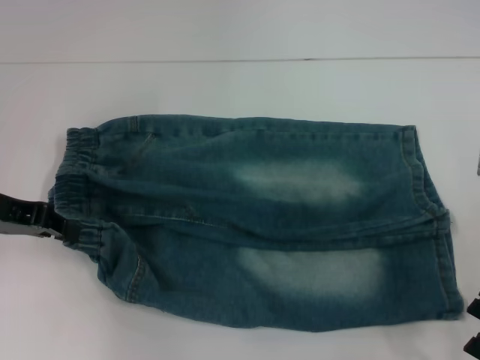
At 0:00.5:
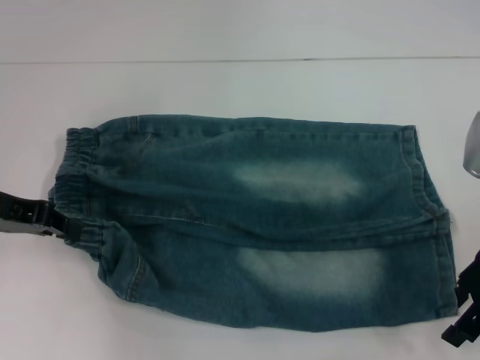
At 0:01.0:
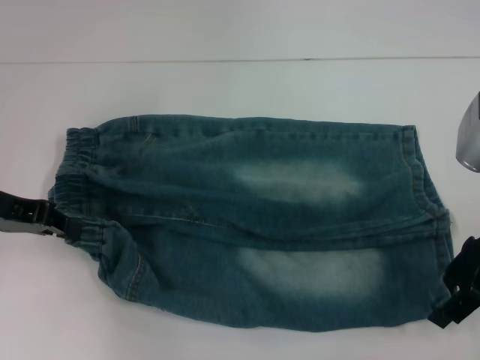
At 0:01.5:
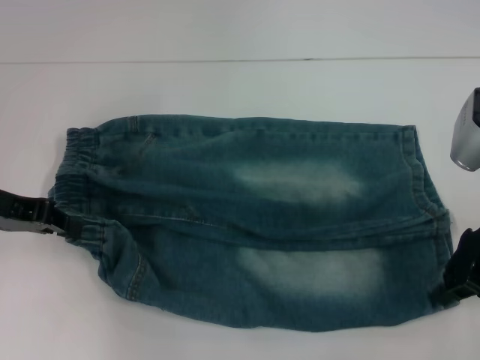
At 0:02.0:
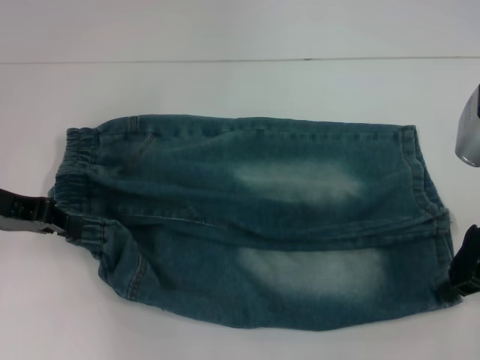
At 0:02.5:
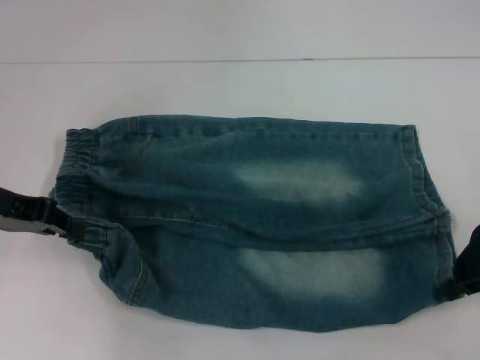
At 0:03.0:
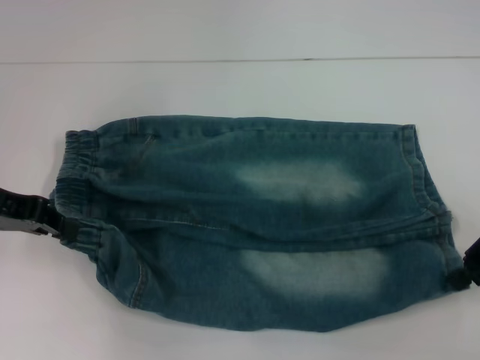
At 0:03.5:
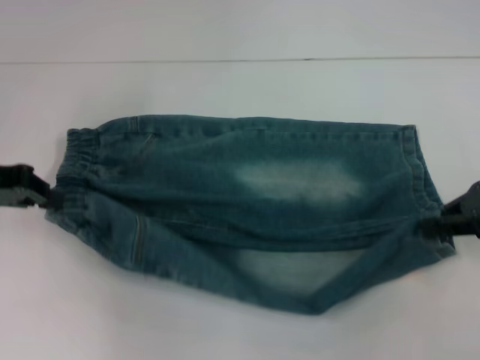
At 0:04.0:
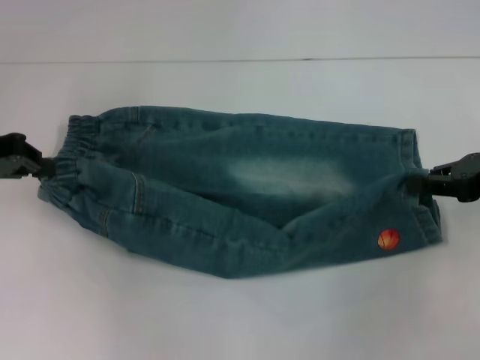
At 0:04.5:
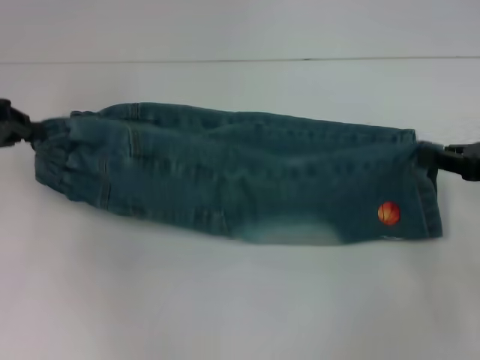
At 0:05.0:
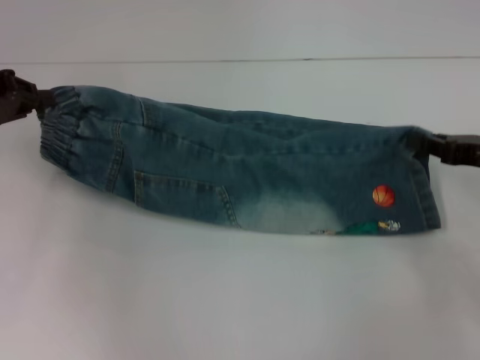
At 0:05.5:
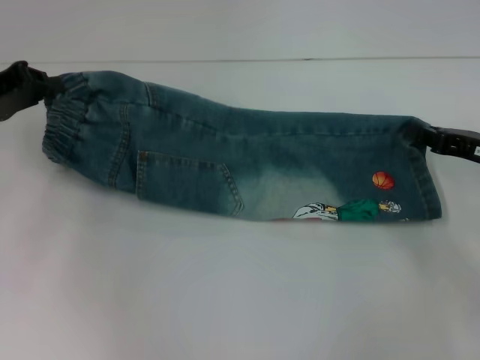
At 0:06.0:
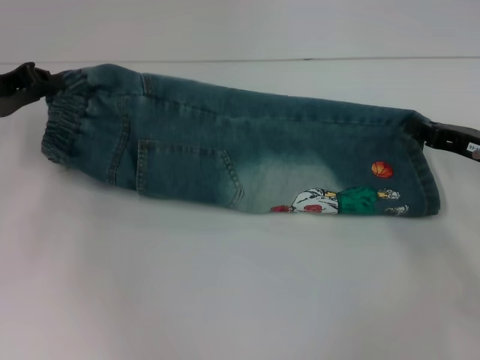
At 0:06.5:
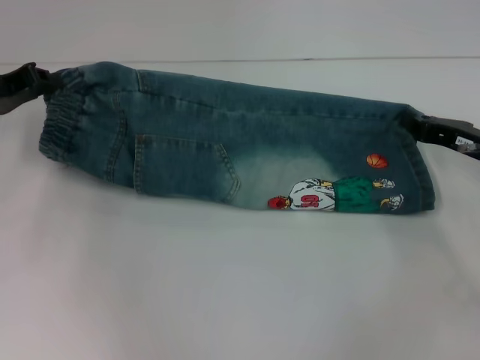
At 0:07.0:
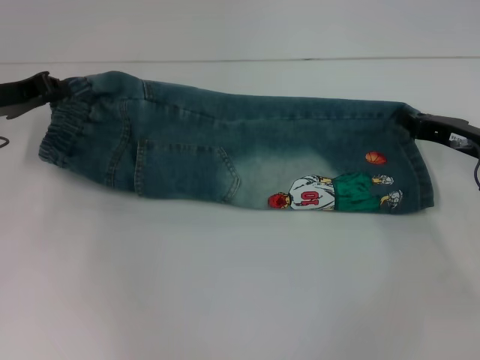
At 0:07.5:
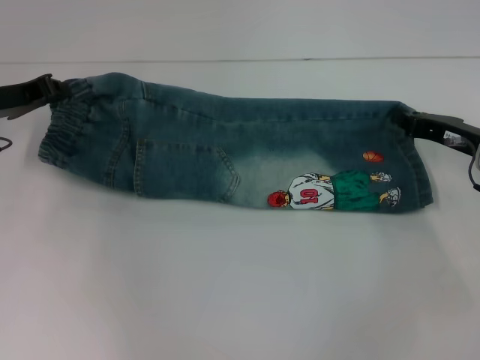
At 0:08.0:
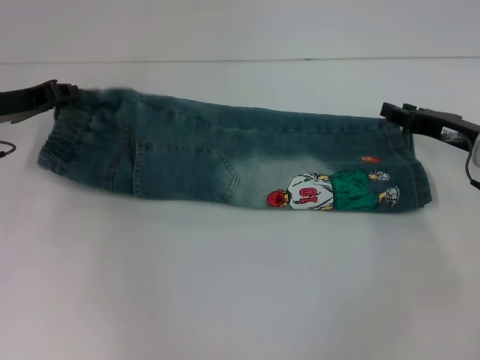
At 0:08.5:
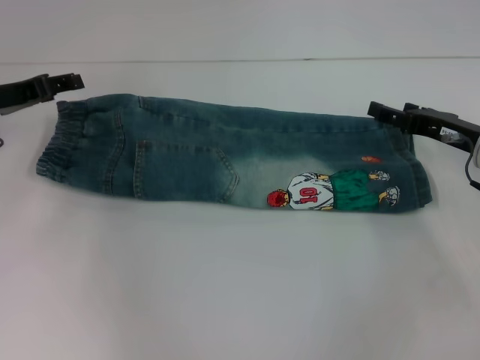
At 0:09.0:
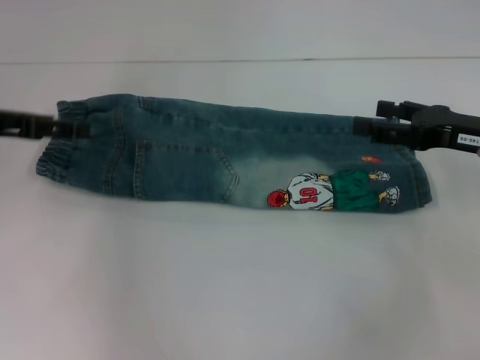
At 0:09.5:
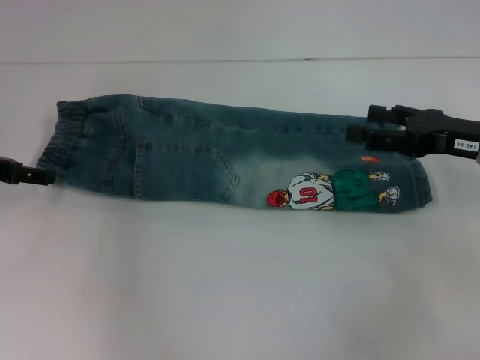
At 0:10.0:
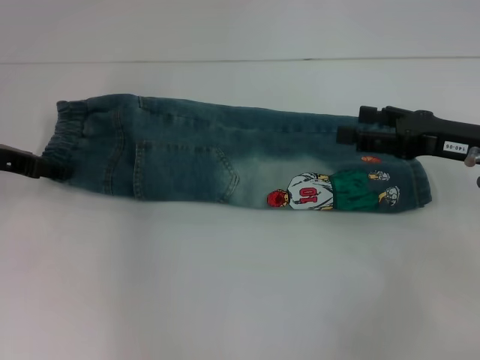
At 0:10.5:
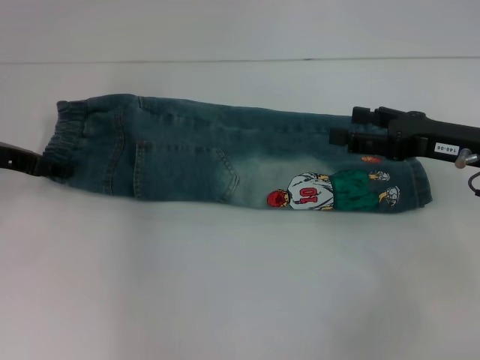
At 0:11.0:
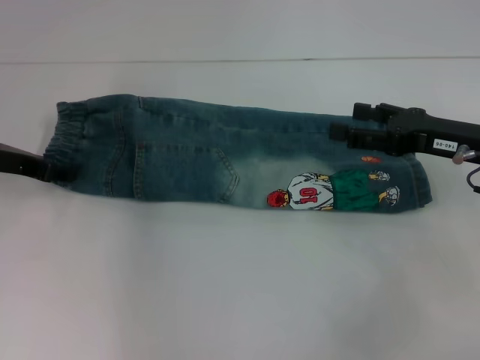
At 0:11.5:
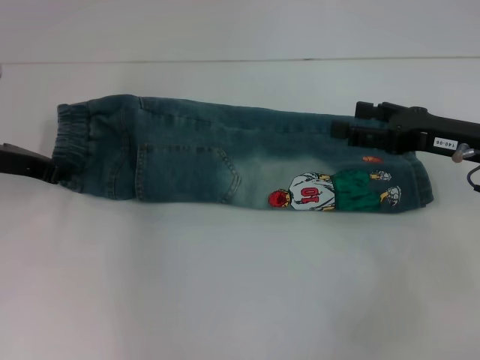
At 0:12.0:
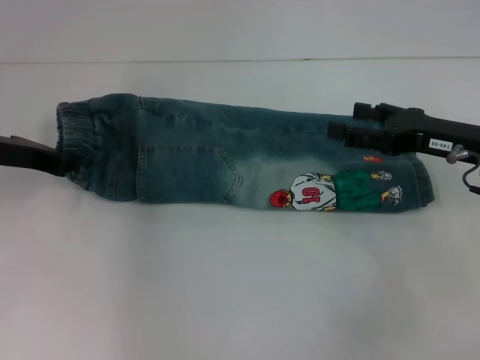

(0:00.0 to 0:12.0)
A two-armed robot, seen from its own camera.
Step, 0:01.5 - 0:08.0: Fold upward with your right hand.
Step, 0:08.5 - 0:11.0: Hold the waistband with your left hand.
0:00.0 - 0:02.0: The right gripper closes.
0:02.0 - 0:04.0: The right gripper moves to the right, approximately 5 cm.
0:04.0 - 0:06.0: The right gripper moves downward, approximately 5 cm.
0:06.0 - 0:08.0: The grippers make only small movements.
0:08.0 - 0:10.0: The left gripper opens, while the right gripper is displaced upward by about 5 cm, and opens its fingers.
0:10.0 - 0:12.0: The left gripper closes.

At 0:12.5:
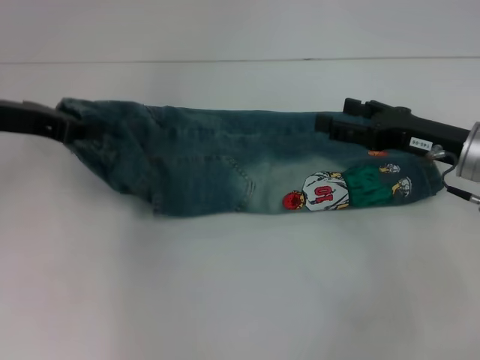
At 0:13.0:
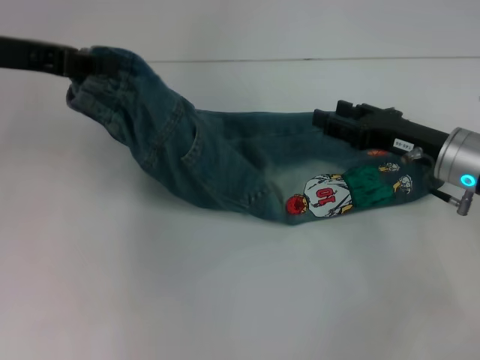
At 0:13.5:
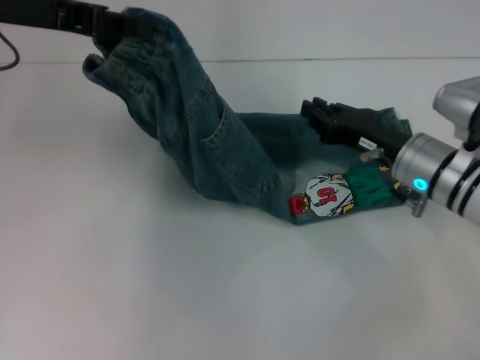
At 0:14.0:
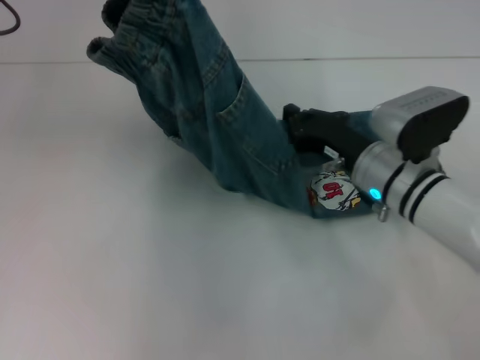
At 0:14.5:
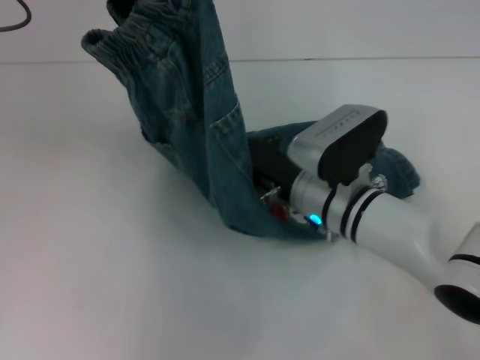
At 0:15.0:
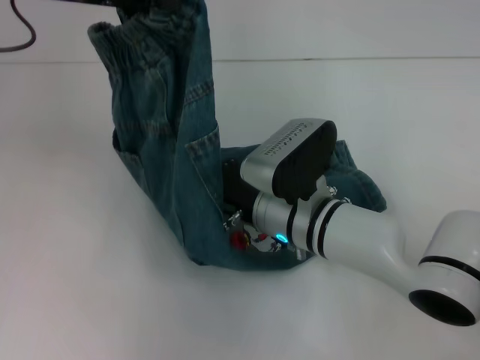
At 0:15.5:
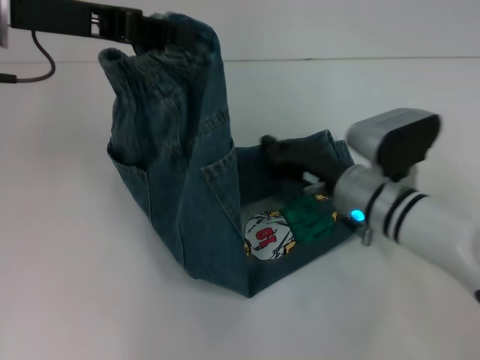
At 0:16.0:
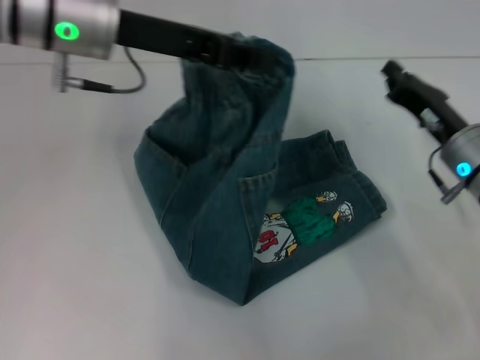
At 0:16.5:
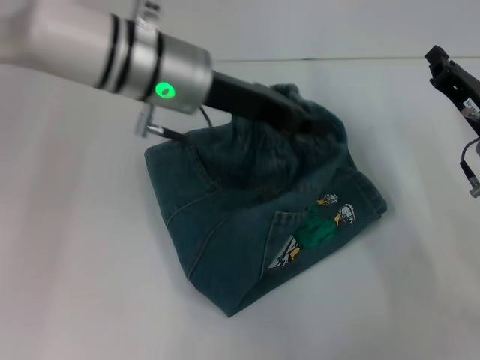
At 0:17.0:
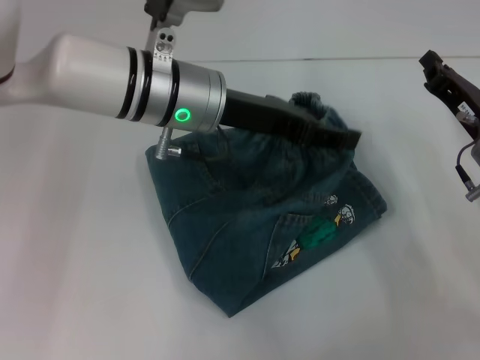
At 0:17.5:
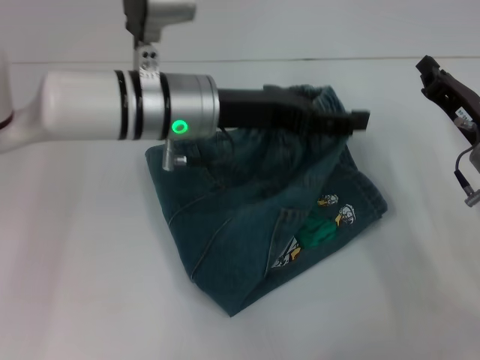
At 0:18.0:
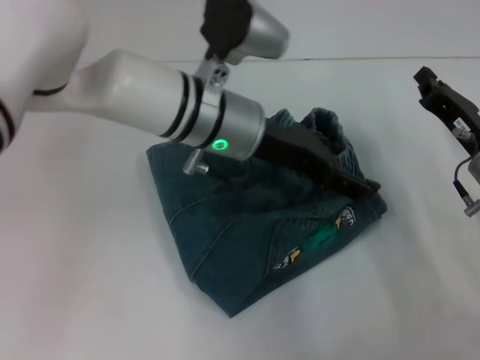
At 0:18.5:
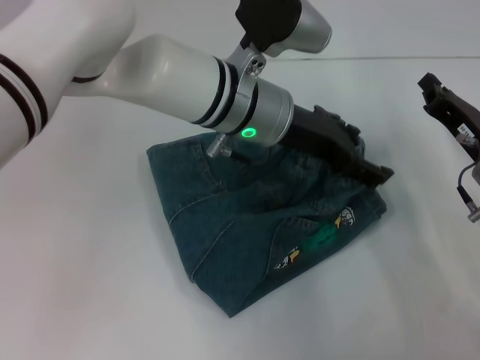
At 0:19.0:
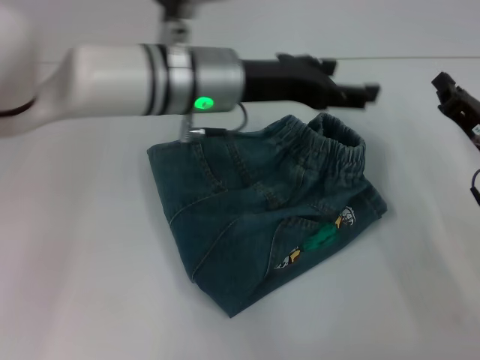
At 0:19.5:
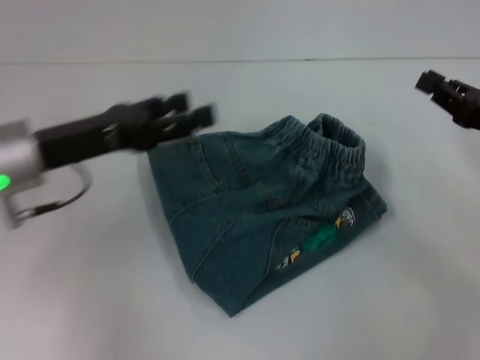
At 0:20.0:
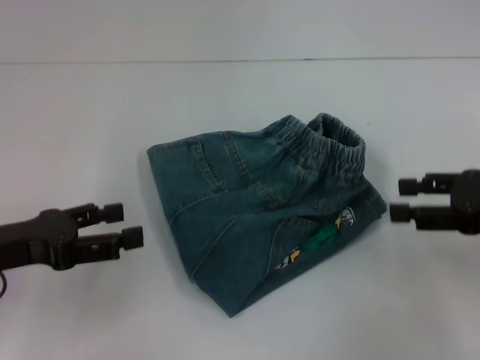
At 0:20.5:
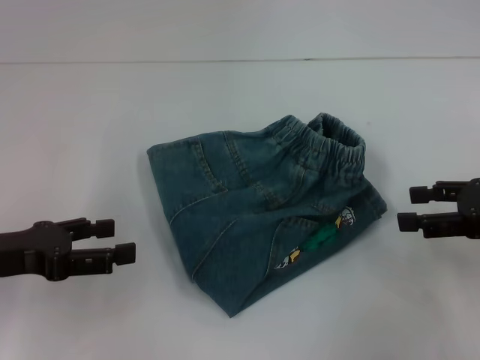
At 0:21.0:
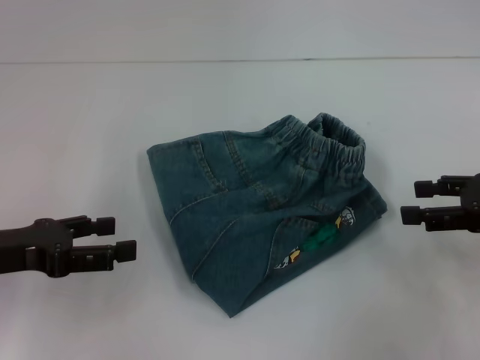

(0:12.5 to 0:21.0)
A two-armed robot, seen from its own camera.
Step, 0:12.5 - 0:15.0: Press the middle of the pants with your right hand.
Step, 0:15.5 - 0:18.5: Fold to the right with your left hand.
0:12.5 - 0:14.5: The left gripper is displaced upward by some 10 cm. The right gripper shifts about 15 cm to the left, and closes up.
0:14.5 - 0:16.5: The right gripper moves to the right, approximately 20 cm. The left gripper is displaced to the right and downward by roughly 20 cm.
0:16.5 - 0:19.0: The left gripper opens up.
0:19.0 - 0:21.0: The left gripper is displaced to the left and backward by roughly 25 cm, while the right gripper travels upward and to the right by some 10 cm, and opens its fingers.

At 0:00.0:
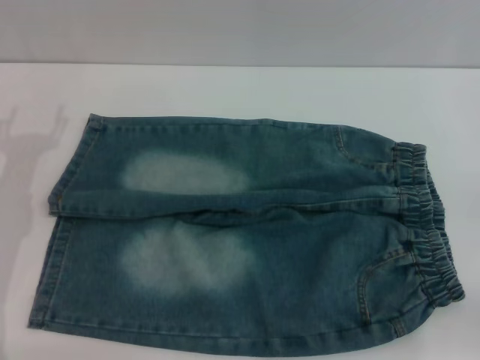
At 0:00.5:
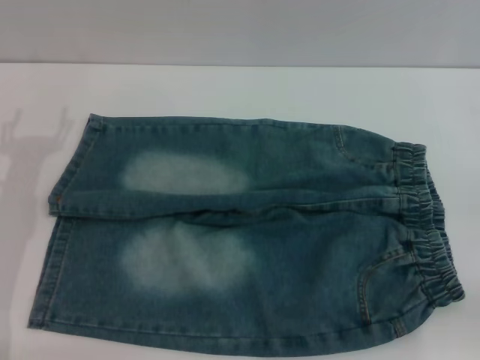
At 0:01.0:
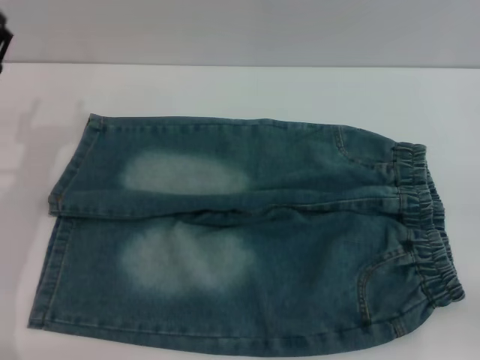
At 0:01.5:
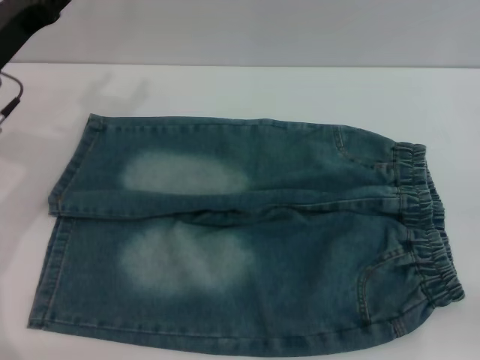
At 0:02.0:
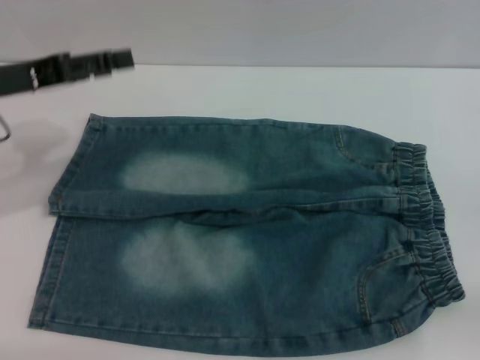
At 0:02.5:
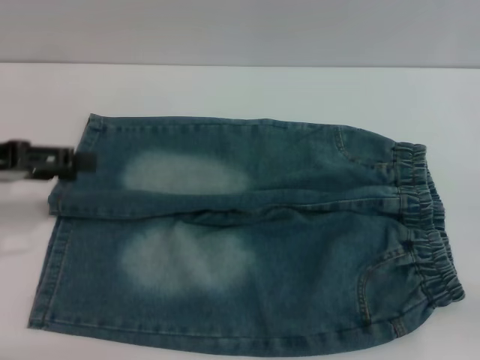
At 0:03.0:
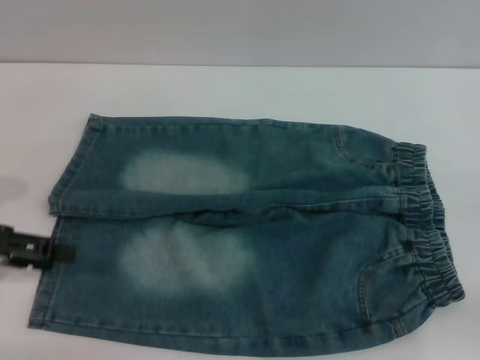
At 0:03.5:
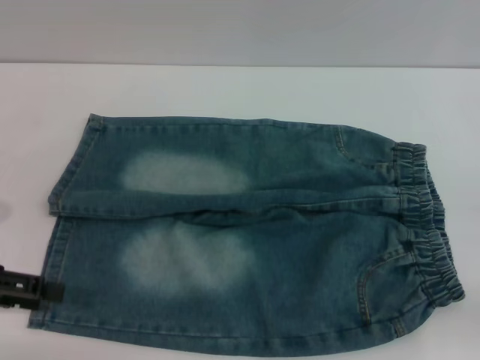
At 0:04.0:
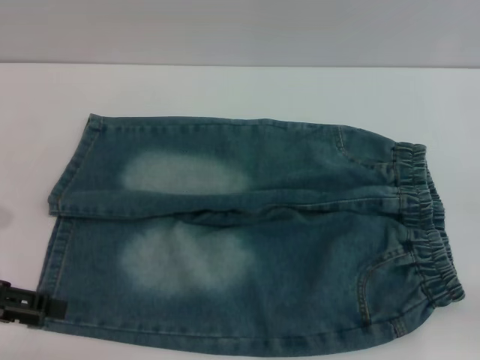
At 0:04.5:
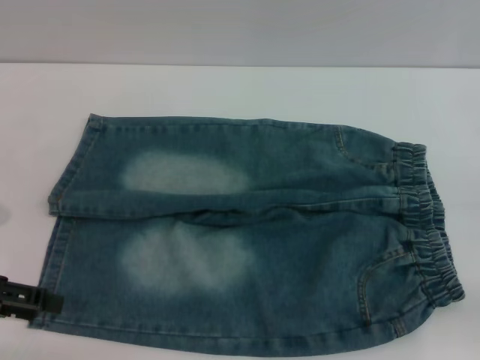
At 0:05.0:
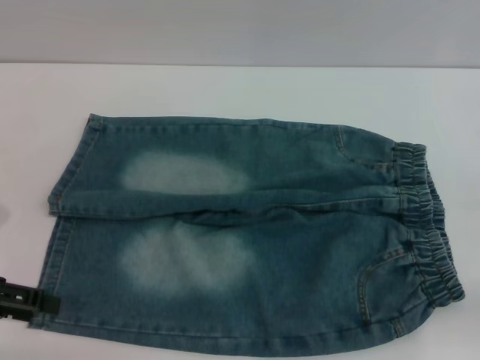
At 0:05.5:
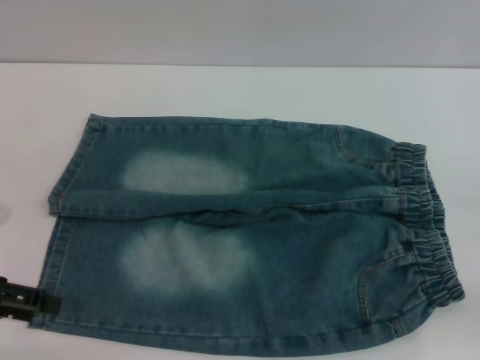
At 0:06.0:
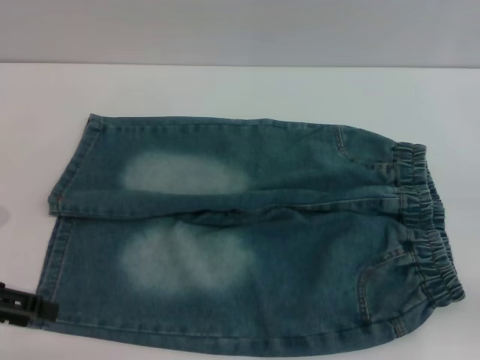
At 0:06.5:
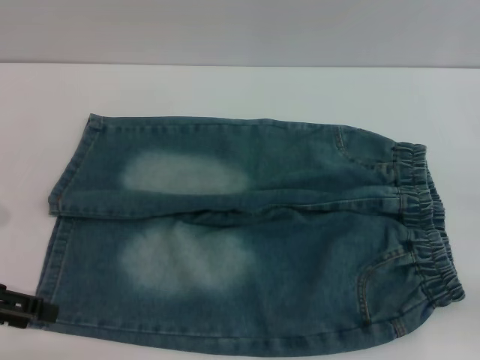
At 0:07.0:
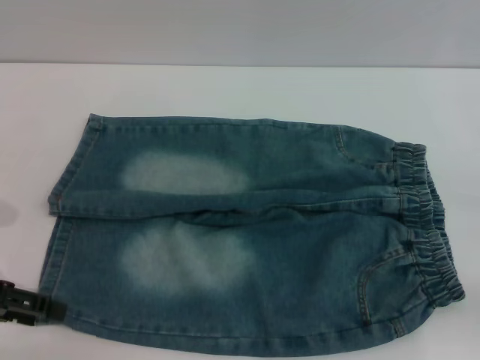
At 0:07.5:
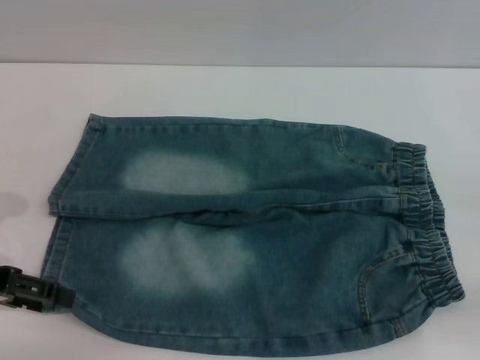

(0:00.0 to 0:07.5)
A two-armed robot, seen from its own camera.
0:00.0 - 0:02.0: The left gripper moves upward, approximately 10 cm.
0:02.0 - 0:04.0: The left gripper travels backward, downward and to the left by roughly 15 cm.
0:04.0 - 0:05.5: Both grippers stay put.
0:05.5 - 0:07.5: The grippers make only small movements.
